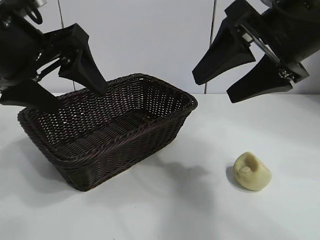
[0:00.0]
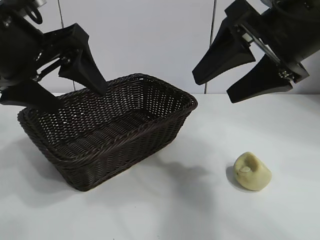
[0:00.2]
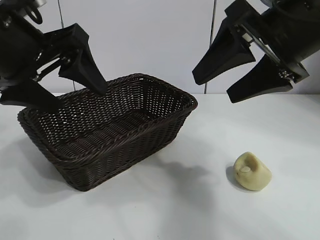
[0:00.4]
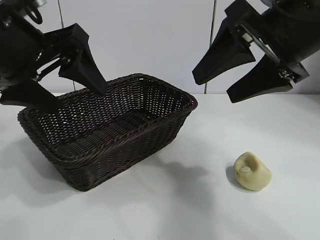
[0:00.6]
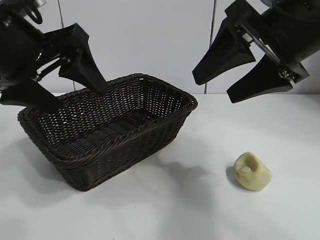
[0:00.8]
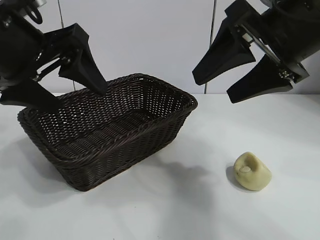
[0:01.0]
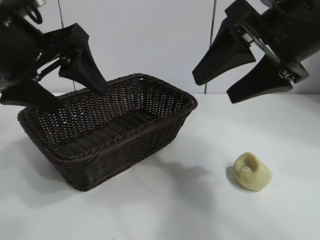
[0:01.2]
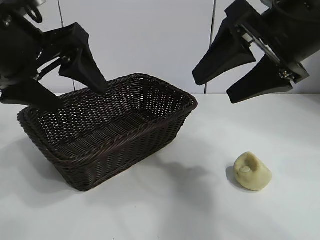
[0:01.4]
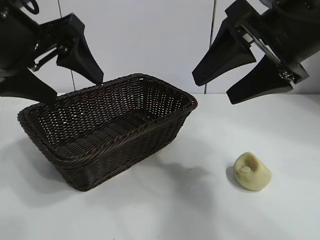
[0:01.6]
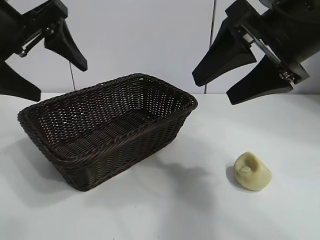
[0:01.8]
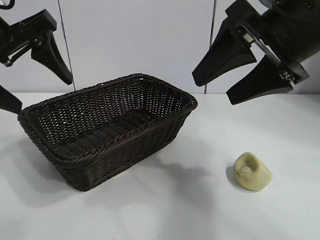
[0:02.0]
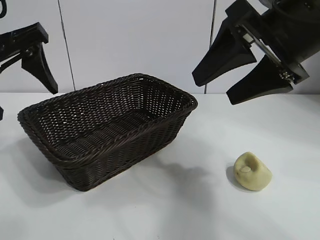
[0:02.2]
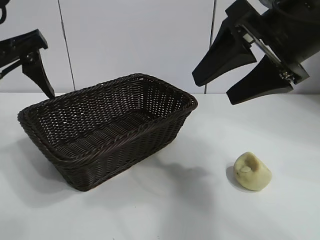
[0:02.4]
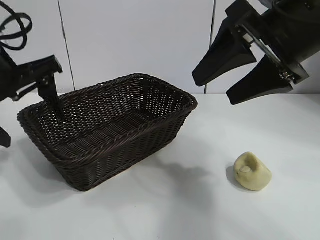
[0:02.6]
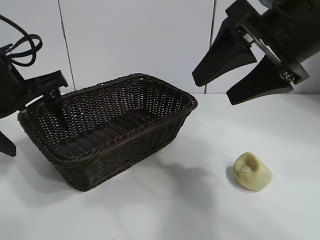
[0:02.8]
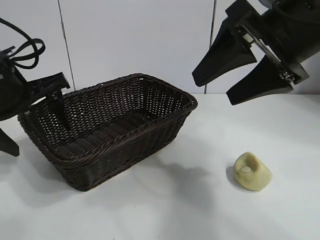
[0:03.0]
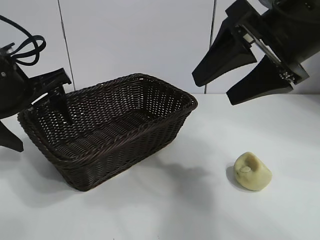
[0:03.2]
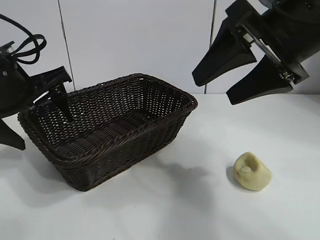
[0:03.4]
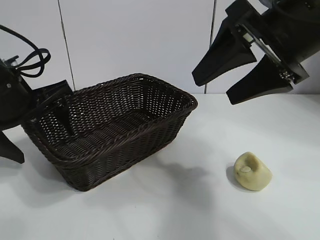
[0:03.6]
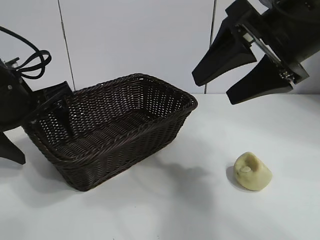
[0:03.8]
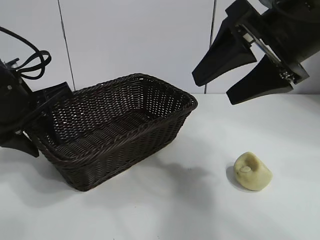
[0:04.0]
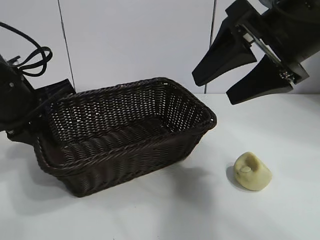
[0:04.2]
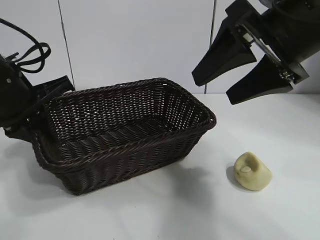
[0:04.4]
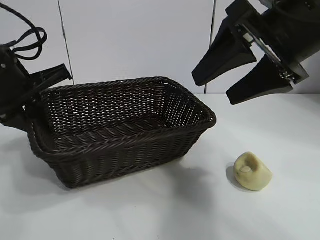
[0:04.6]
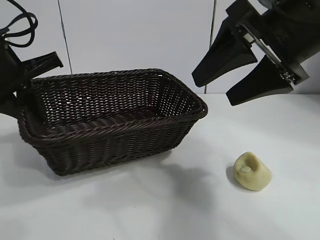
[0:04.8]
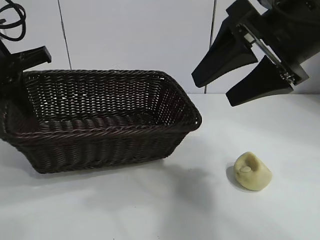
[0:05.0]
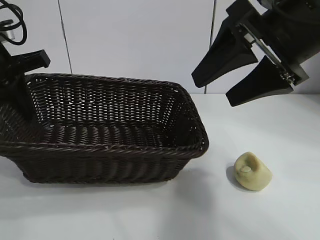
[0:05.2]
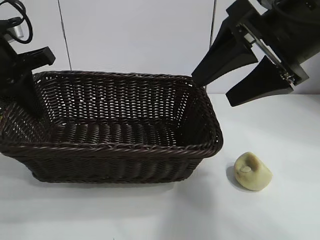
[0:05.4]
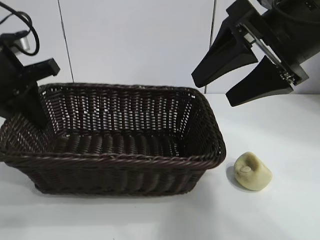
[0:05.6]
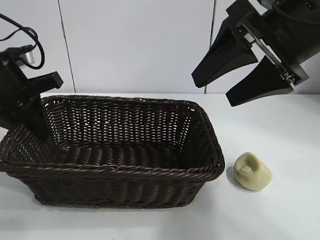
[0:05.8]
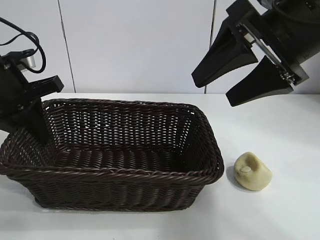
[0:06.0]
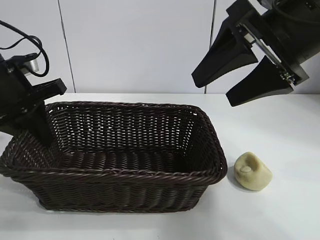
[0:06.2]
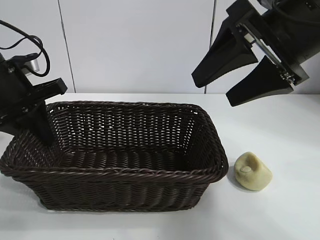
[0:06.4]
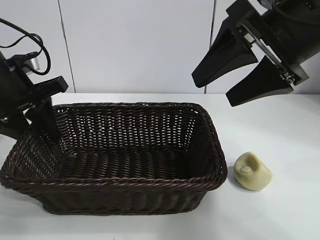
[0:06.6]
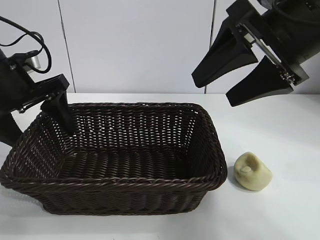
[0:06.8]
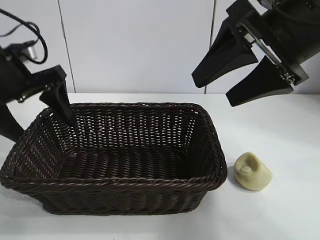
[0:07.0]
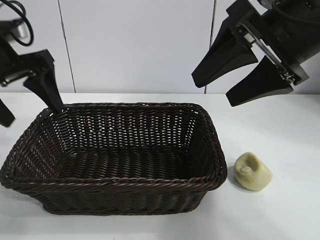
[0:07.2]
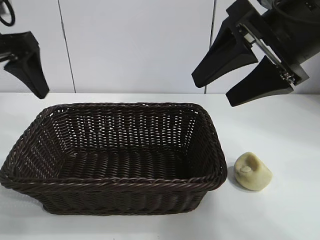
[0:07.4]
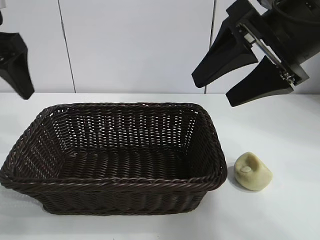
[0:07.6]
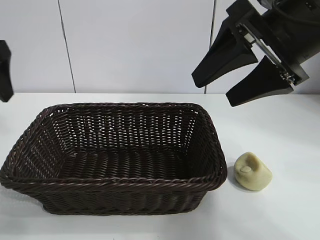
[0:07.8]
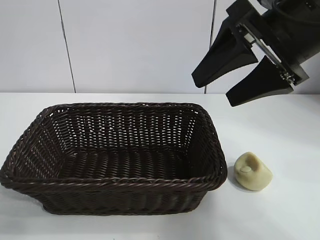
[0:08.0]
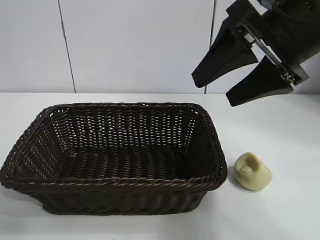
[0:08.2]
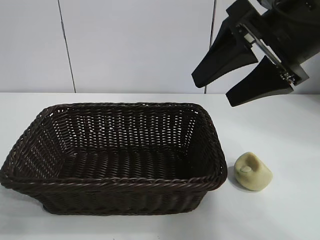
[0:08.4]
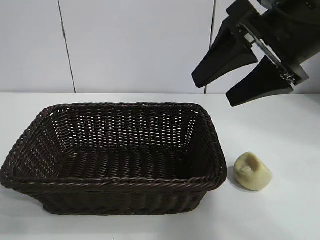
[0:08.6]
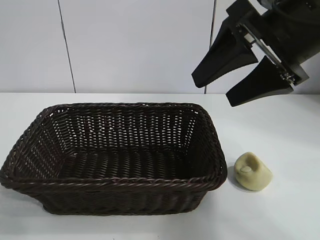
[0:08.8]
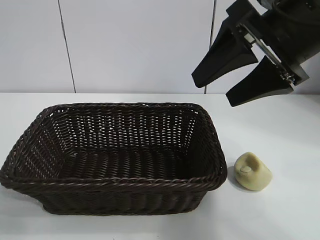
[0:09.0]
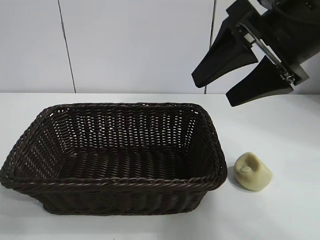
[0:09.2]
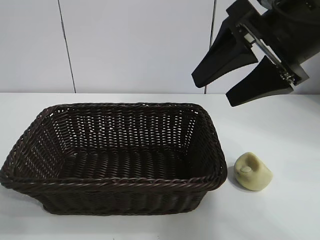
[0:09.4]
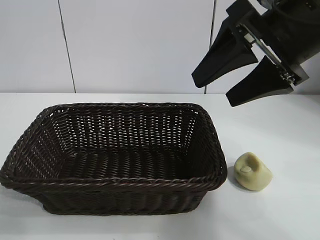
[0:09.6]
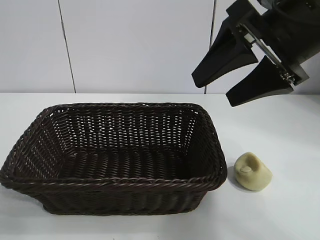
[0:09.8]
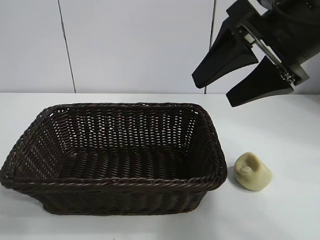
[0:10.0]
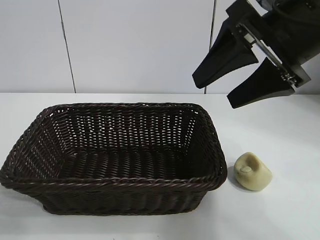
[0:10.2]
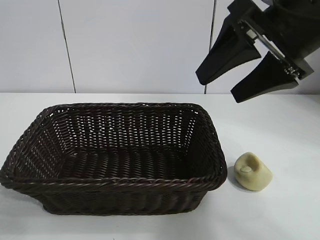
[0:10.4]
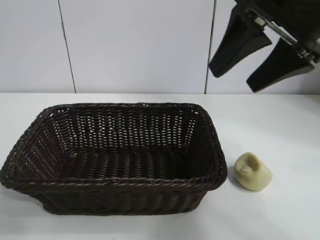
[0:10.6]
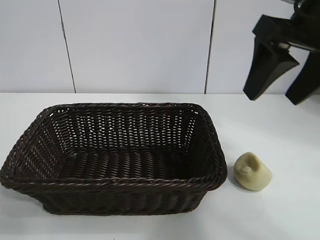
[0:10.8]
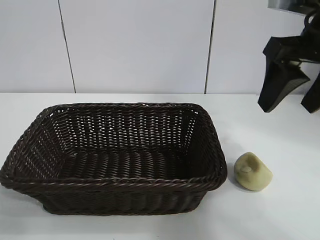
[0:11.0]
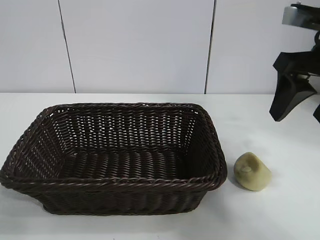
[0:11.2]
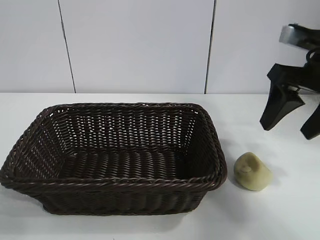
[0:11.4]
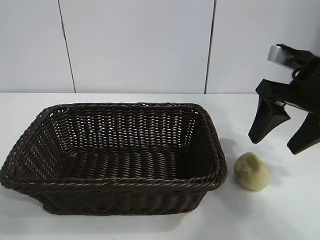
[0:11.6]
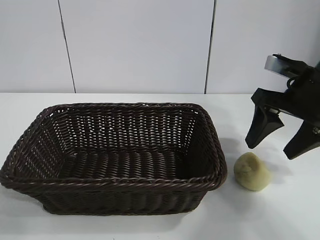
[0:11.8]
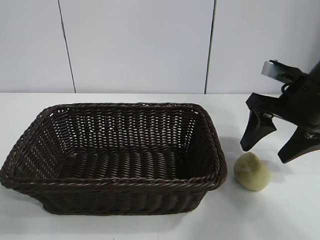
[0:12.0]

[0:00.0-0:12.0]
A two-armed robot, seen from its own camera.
Task of the whole recording: pick up the egg yolk pastry and put it into the basket.
Step, 0:01.4 to 0:04.0: Grasp the basket with left gripper.
Step, 0:04.2 to 0:06.8: Place the basket in the center of view with left gripper.

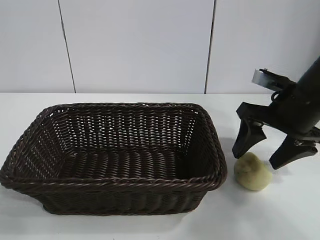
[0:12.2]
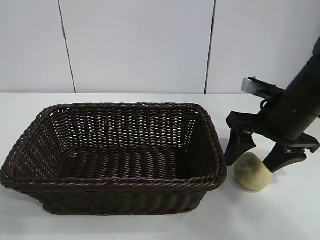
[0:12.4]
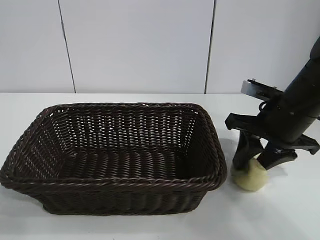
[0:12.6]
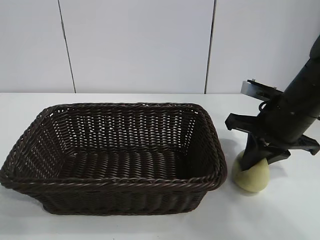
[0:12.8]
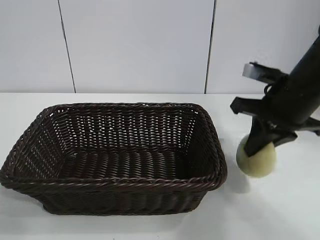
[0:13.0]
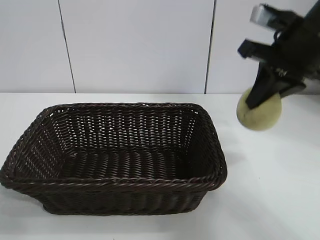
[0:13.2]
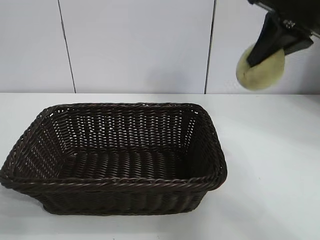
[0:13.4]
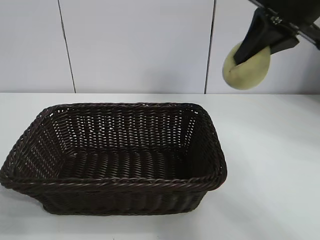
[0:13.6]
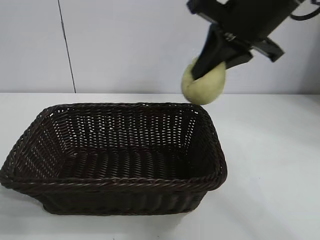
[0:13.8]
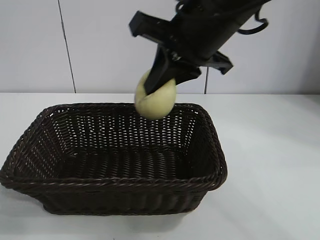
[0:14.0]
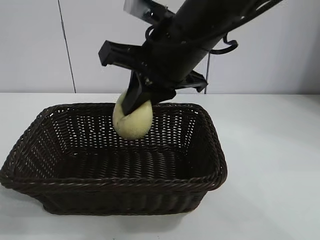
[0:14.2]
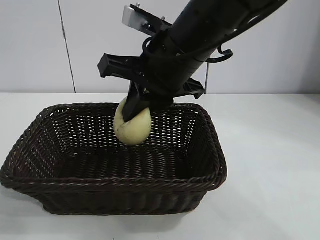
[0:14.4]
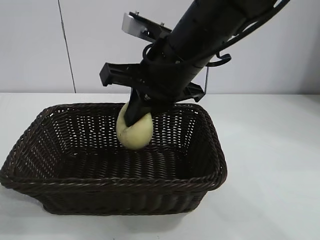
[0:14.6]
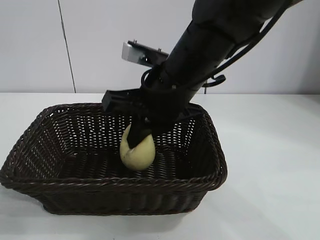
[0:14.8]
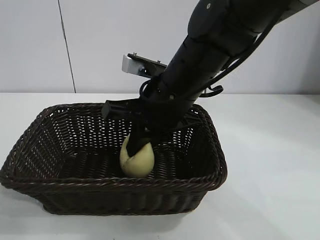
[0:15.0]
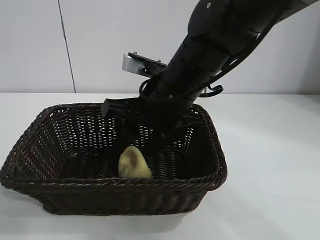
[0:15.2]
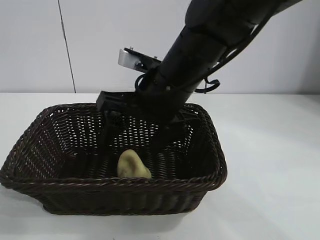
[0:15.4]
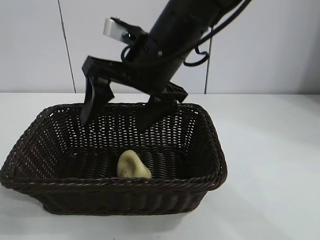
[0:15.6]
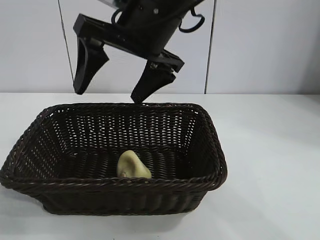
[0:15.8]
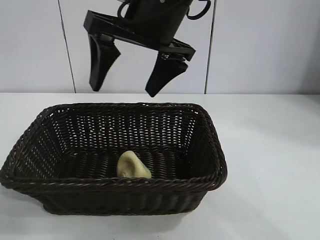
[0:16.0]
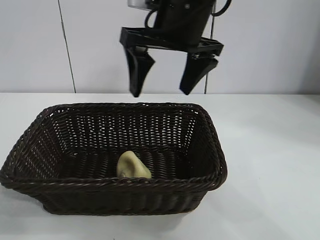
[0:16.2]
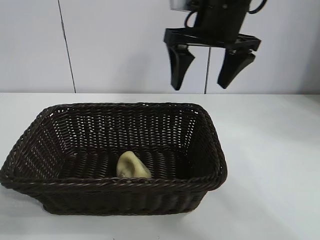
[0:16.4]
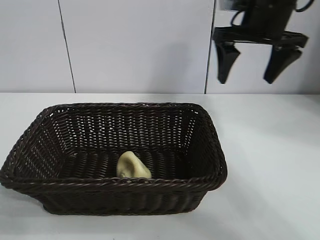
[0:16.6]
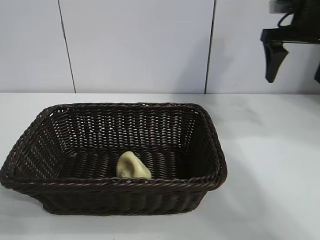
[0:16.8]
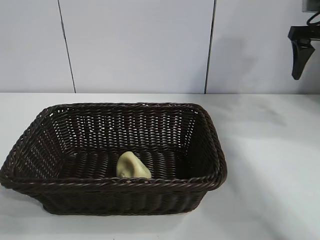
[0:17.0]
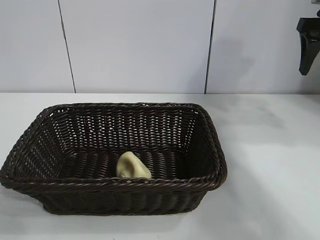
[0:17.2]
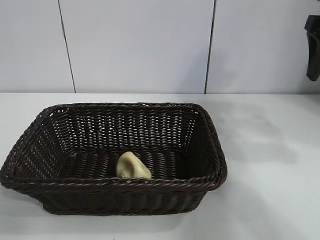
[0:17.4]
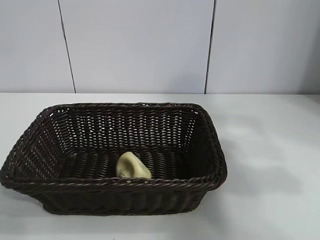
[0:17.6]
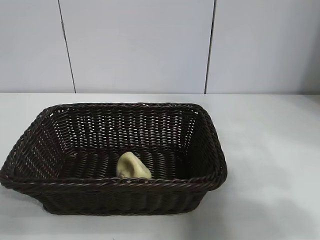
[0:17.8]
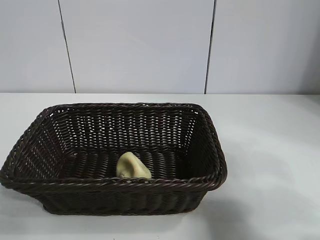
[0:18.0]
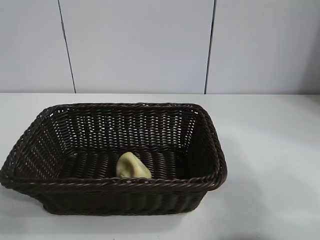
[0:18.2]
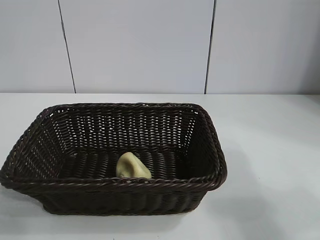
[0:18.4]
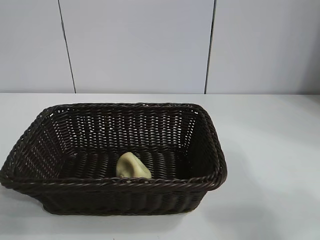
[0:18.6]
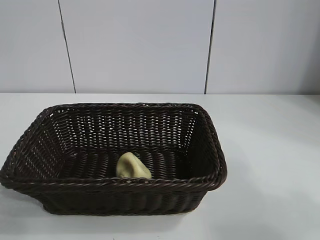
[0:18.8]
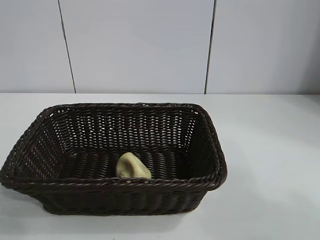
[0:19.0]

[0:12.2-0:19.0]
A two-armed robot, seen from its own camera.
Task of the whole recording: pick up the egg yolk pastry and put it into the basket.
Step, 0:13.0 to 0:15.2: Place the egg yolk pastry in the basket with right gripper.

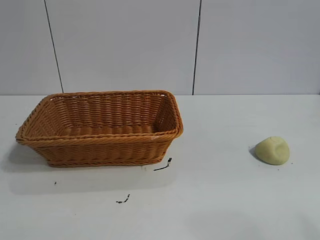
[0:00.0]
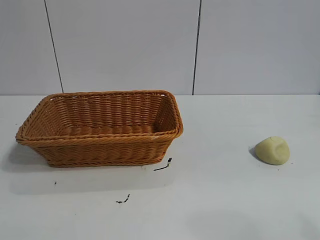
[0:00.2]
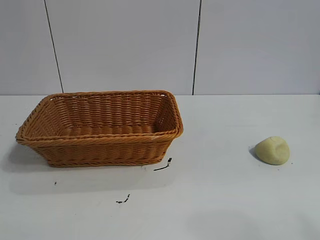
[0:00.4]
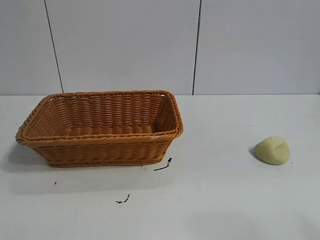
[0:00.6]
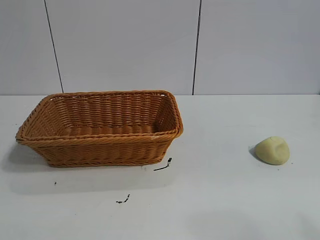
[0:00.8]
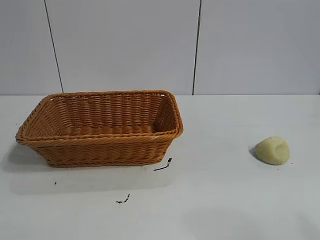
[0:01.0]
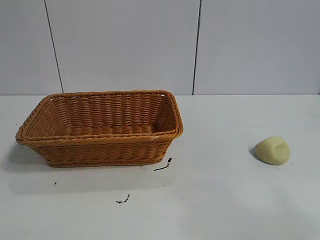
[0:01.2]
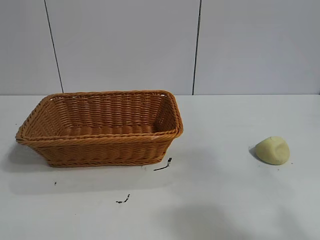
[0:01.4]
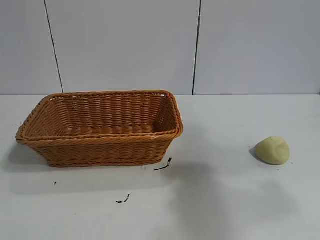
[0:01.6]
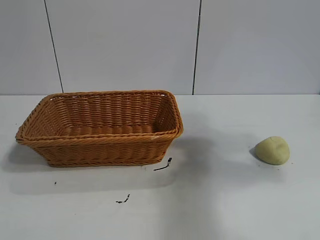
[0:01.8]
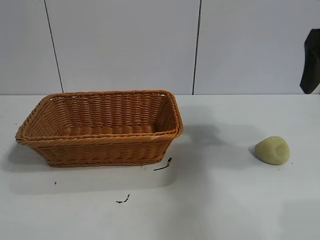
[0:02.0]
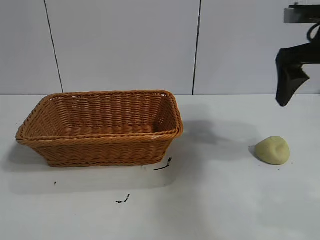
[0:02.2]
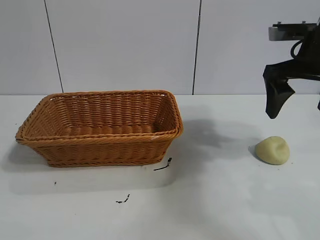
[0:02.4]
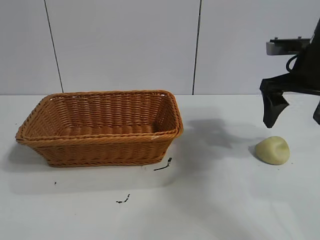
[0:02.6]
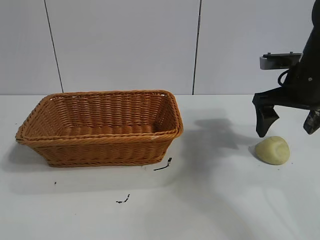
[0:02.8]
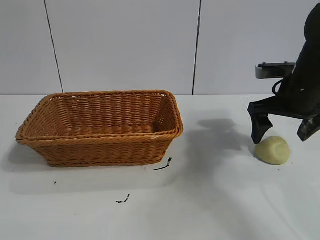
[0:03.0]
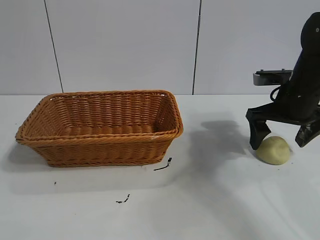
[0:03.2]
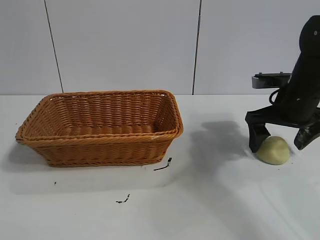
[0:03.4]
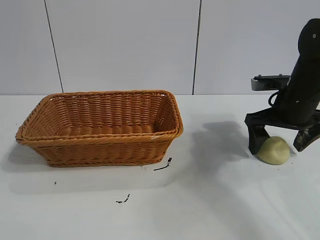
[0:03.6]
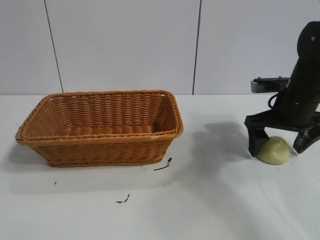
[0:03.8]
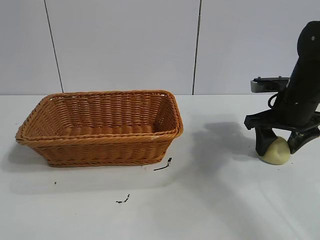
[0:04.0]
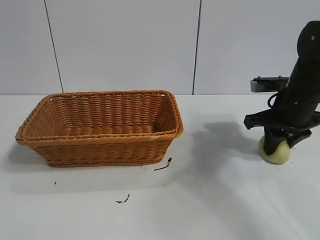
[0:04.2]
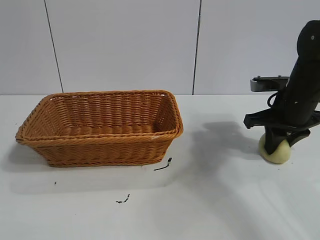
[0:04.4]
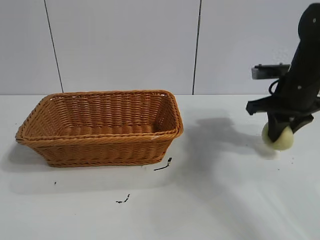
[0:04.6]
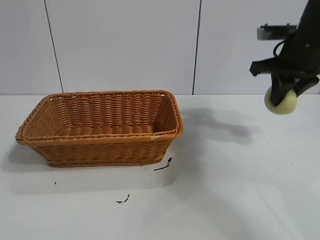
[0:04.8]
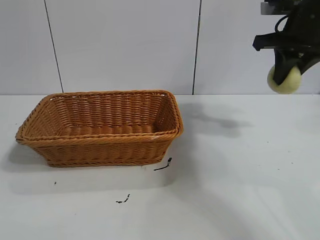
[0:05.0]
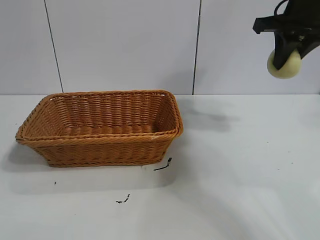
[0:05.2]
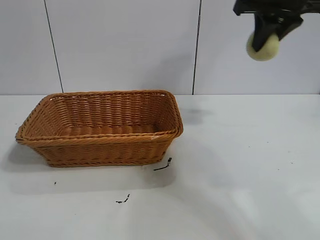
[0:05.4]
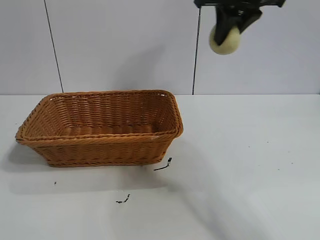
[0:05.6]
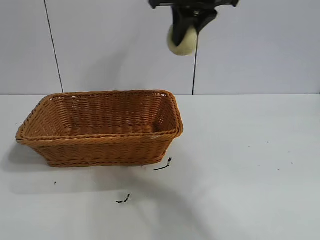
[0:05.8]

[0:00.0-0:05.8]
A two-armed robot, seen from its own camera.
Task of the whole recording: pick up the egg yolk pastry and put it into the basket.
Step, 0:01.0 to 0:04.2: Grasp egg yolk pastry with right gripper.
